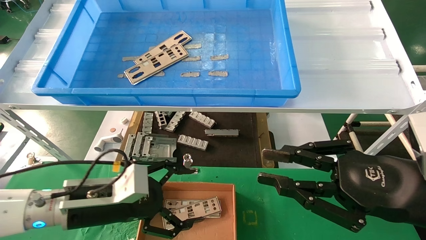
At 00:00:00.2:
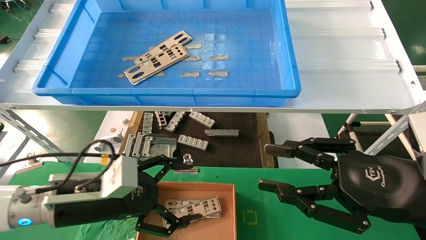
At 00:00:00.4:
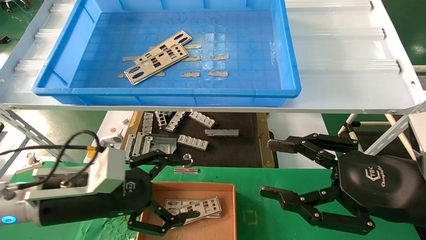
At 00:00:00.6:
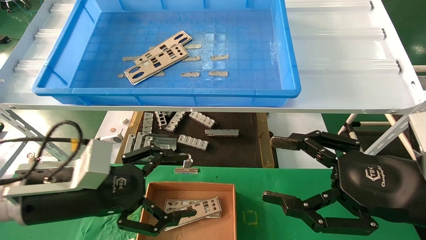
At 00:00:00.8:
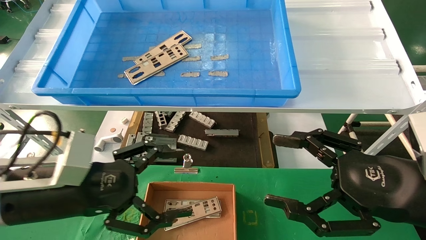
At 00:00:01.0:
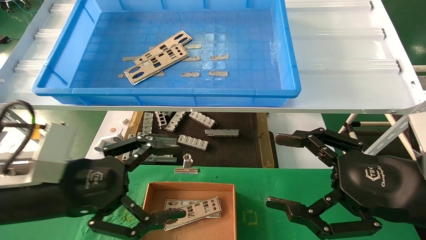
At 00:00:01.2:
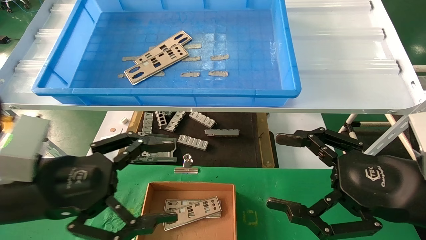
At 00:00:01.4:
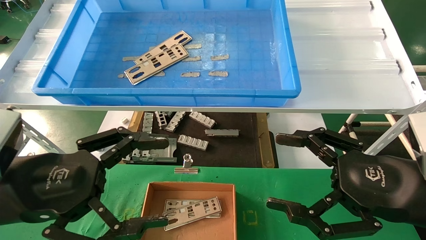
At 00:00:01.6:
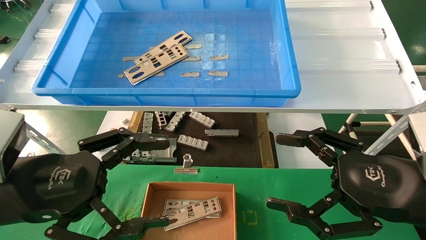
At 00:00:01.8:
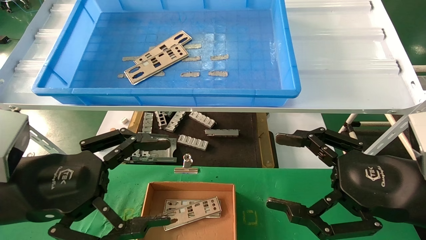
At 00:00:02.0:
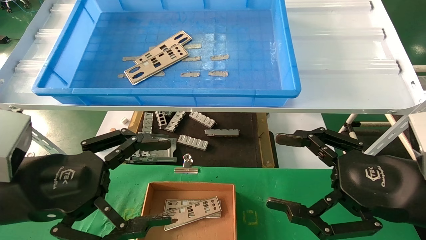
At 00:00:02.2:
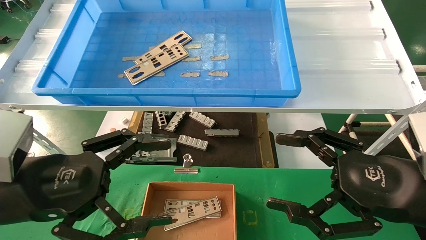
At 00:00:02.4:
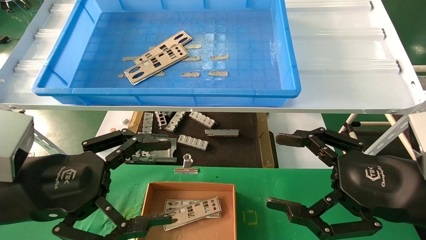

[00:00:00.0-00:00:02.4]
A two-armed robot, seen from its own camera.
Task of the whole recording: pick up the parts on the tray and put them in the cardboard box.
00:00:00.0 to 00:00:01.2: The right gripper opens; the left gripper heads upward and backward, covering roughly 10 cm.
00:00:01.2 to 00:00:02.4: The grippers move only a little.
